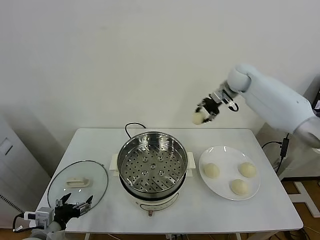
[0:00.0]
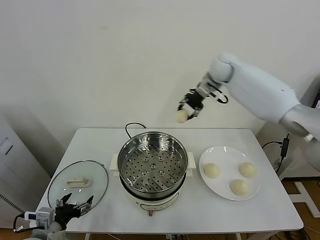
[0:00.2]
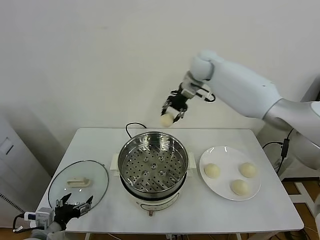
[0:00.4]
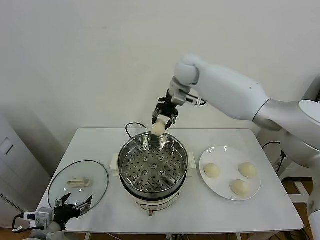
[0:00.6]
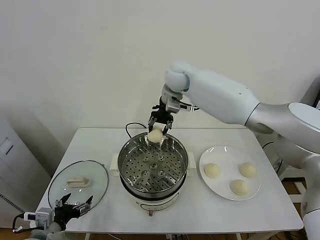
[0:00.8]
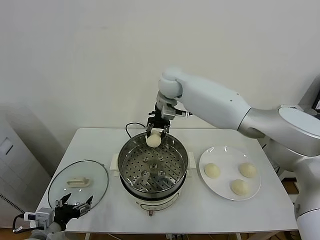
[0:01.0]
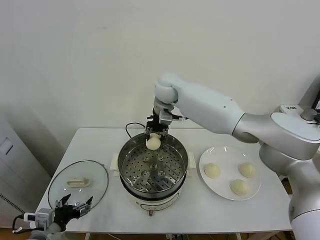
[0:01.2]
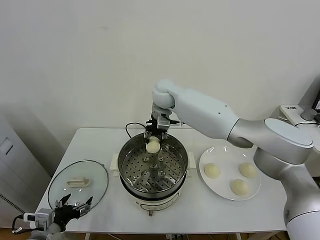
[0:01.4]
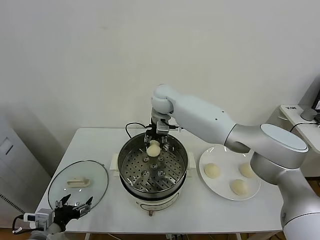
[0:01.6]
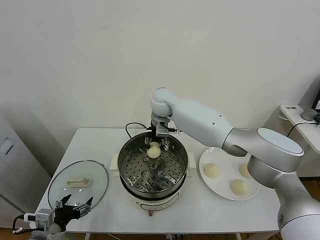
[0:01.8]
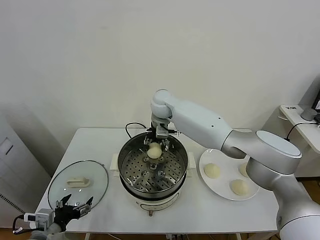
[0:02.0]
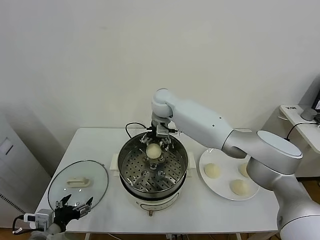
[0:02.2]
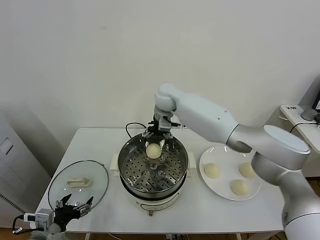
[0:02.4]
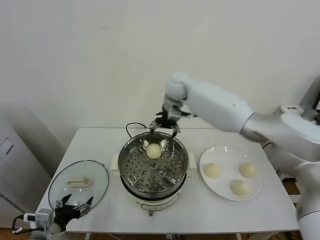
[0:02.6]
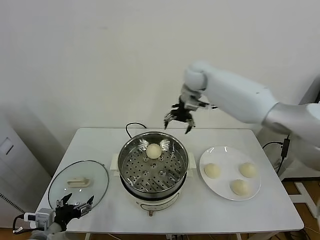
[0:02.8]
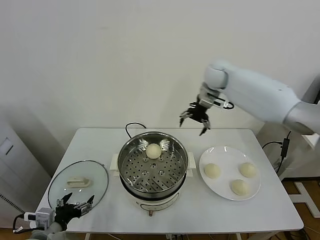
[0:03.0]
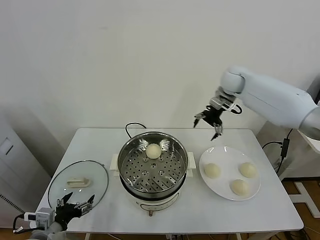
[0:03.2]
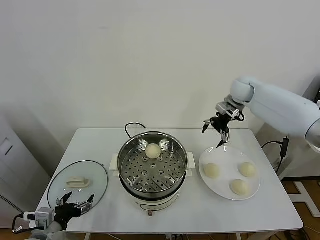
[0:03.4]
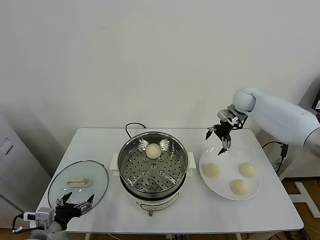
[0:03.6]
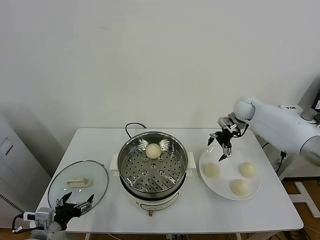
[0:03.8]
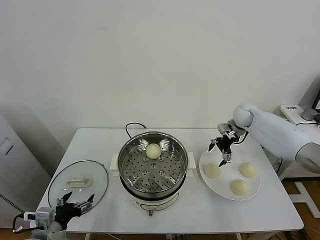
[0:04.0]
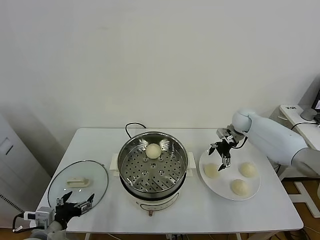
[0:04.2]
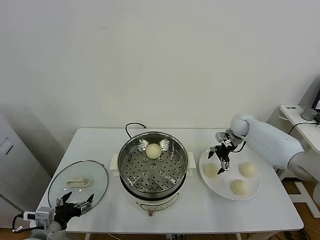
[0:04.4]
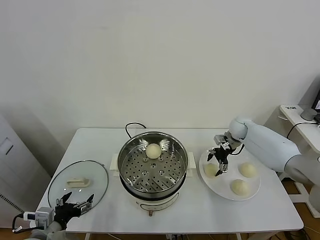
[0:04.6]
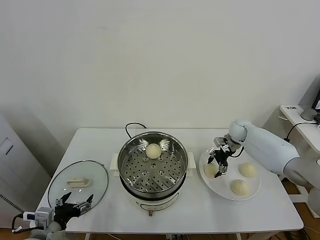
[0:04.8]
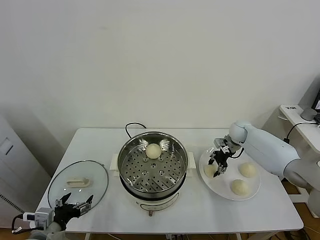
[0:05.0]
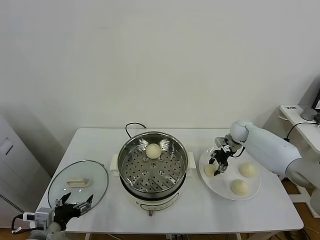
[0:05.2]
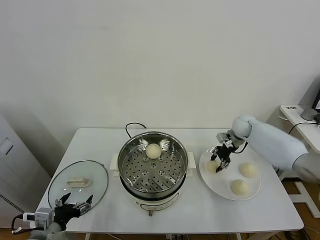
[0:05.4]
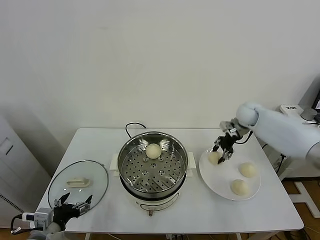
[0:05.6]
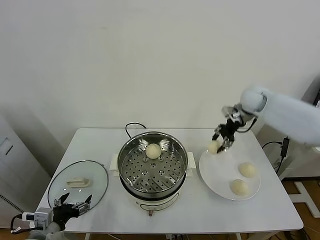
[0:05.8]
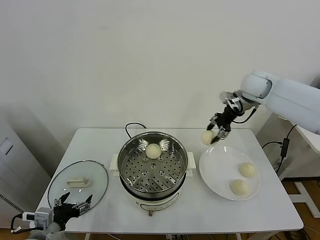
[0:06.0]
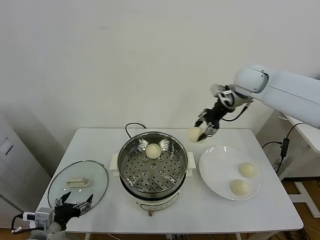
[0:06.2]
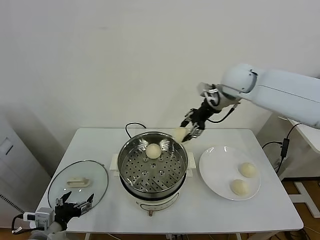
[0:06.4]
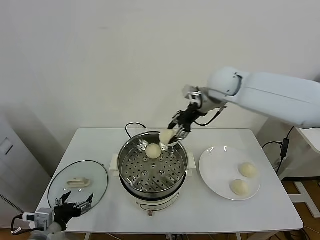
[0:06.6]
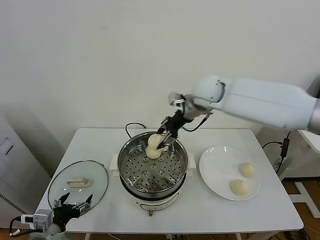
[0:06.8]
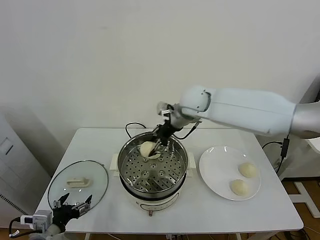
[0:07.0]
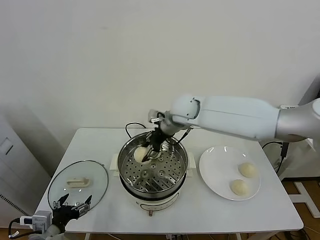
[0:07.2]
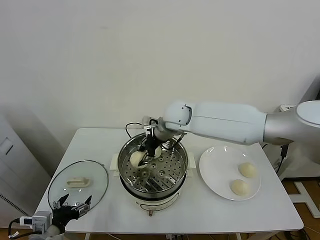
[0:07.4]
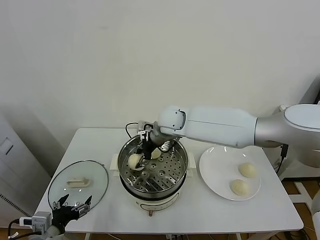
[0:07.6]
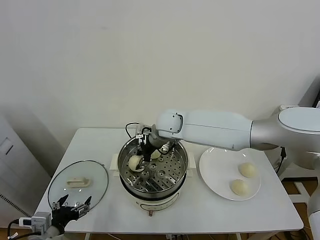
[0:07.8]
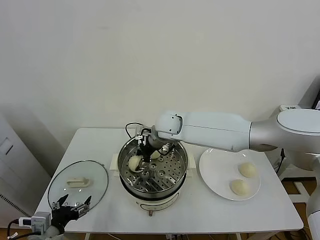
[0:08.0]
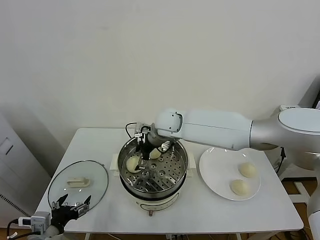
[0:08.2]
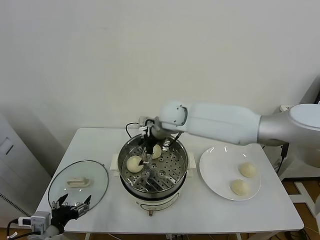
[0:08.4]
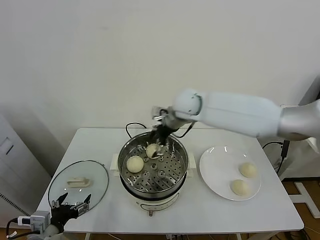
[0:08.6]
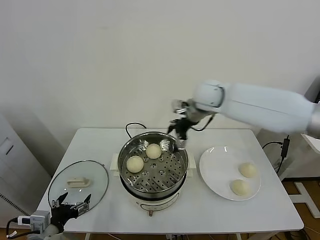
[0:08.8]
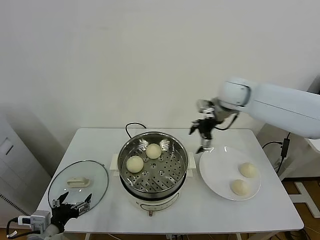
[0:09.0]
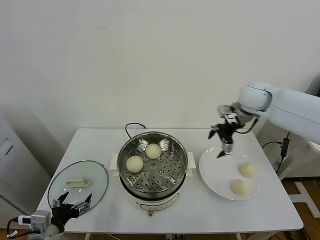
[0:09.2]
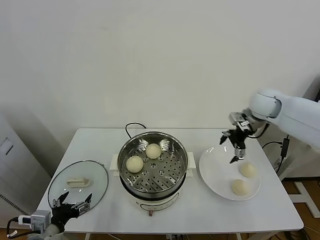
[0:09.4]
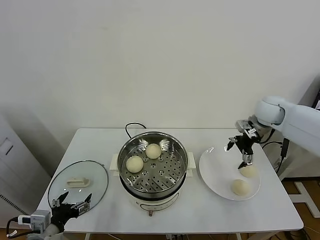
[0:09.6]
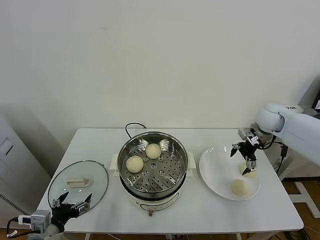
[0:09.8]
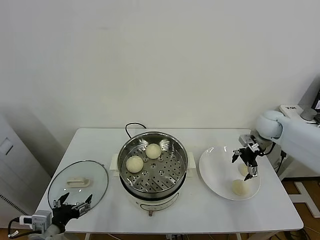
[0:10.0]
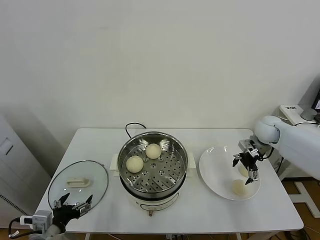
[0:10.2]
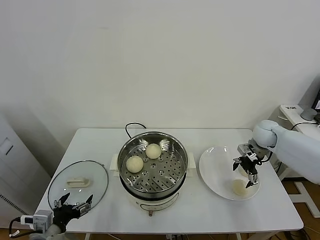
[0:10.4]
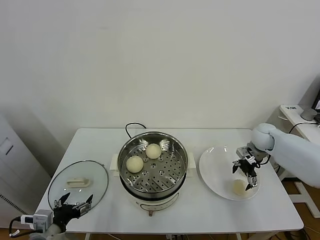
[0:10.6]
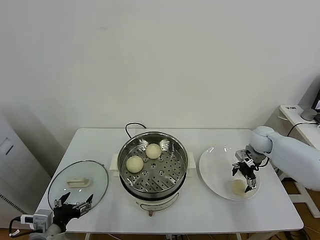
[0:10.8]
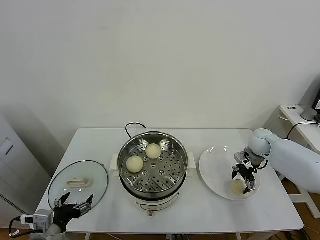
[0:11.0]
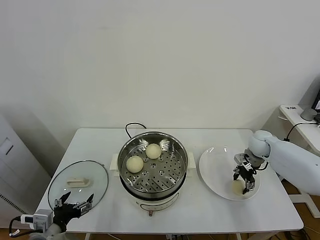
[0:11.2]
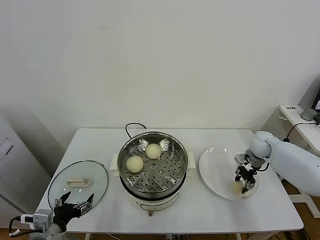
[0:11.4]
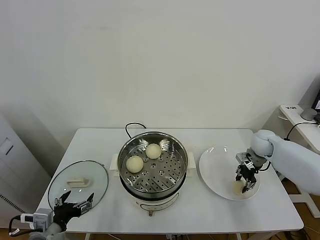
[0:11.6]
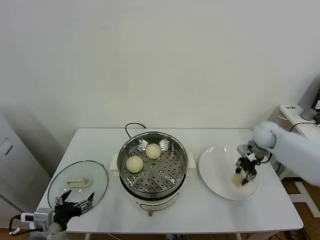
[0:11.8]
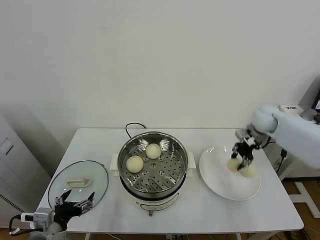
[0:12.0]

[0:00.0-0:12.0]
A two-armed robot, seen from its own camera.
Task of the whole recording: take steamed baozi put them in steamer.
Step, 0:00.0 to 0:02.2: Place the baozi on the steamer with right gripper.
Step, 0:02.4 to 0:05.0: Grasp the baozi in the plate with right gripper.
Step, 0:05.2 to 0:08.4: Place the baozi on the steamer with right gripper.
Step, 0:08.6 to 0:11.2: Grasp the baozi in the plate with right gripper.
0:00.0 to 0:01.6: The right gripper shifts about 25 cm to the left.
0:01.6 to 0:03.0: The right gripper moves to the right, approximately 20 cm, and opens up.
0:03.0 to 0:04.4: The right gripper shifts about 25 cm downward and to the right.
0:04.4 to 0:06.0: The right gripper goes some 20 cm upward, and closes up.
0:06.0 to 0:07.6: The right gripper shifts some 30 cm to the left and downward.
0:07.6 to 0:09.0: The right gripper is displaced to the right and upward by approximately 25 cm, and opens its fingers.
0:09.0 to 0:10.4: The right gripper travels downward and to the right by approximately 25 cm.
0:10.4 to 0:12.0: The right gripper heads upward, covering approximately 10 cm, and closes.

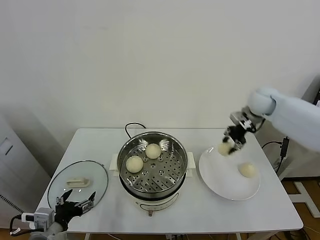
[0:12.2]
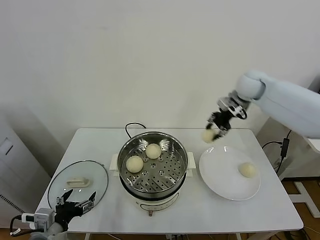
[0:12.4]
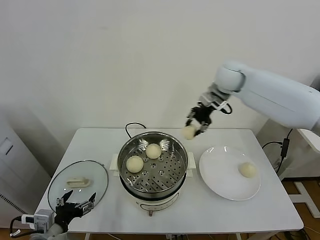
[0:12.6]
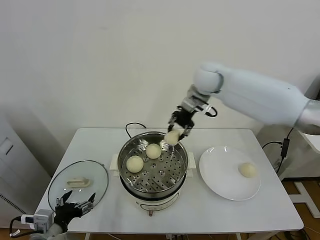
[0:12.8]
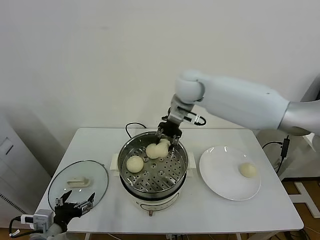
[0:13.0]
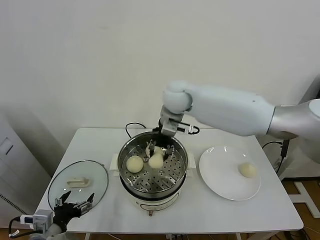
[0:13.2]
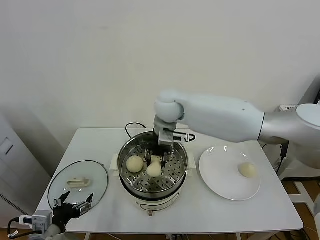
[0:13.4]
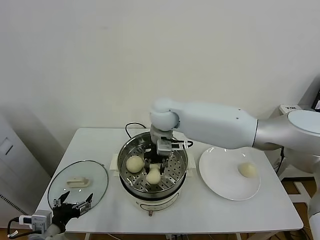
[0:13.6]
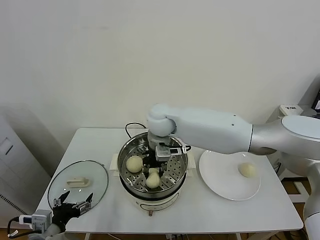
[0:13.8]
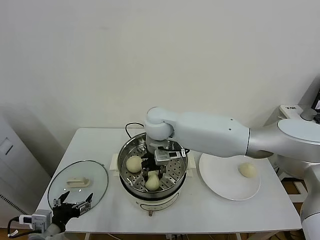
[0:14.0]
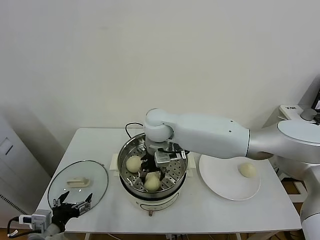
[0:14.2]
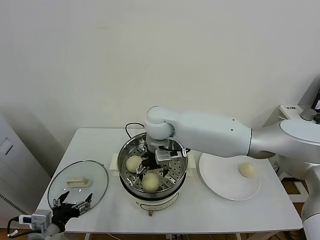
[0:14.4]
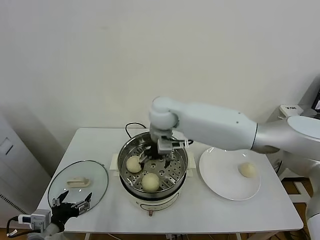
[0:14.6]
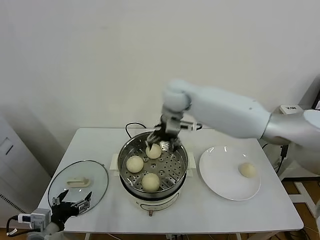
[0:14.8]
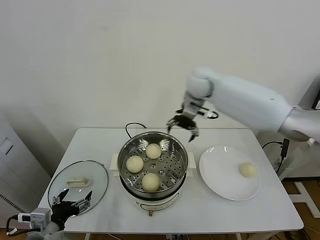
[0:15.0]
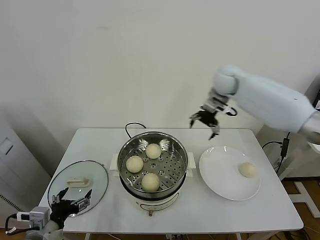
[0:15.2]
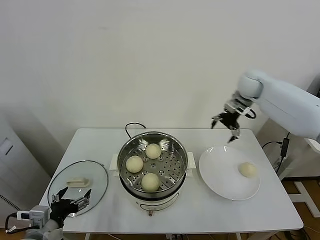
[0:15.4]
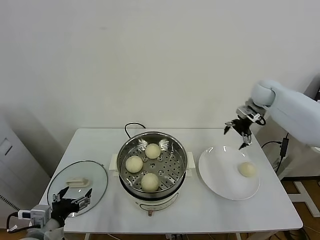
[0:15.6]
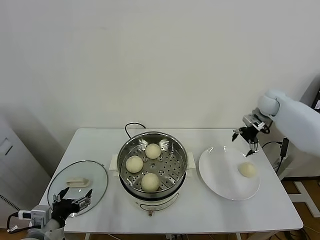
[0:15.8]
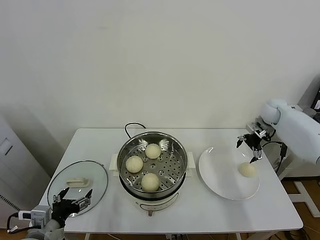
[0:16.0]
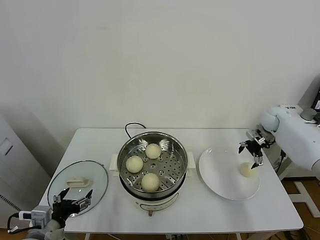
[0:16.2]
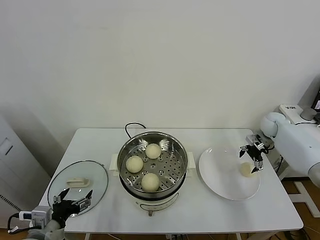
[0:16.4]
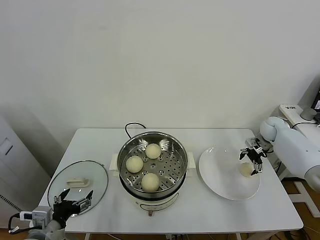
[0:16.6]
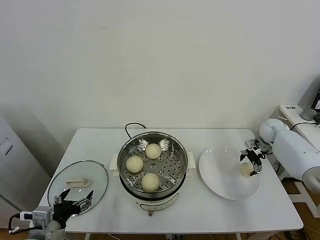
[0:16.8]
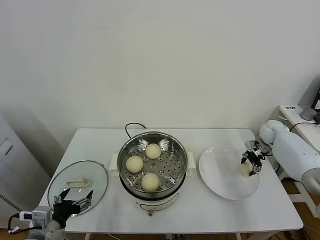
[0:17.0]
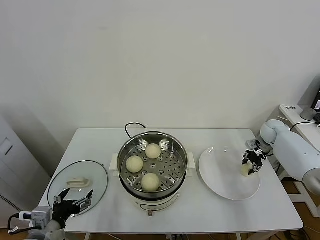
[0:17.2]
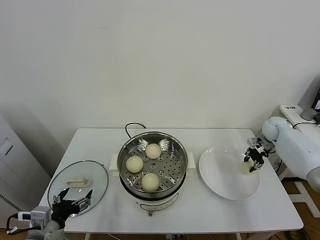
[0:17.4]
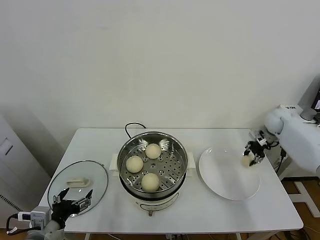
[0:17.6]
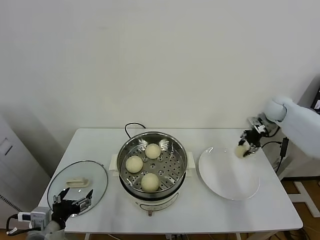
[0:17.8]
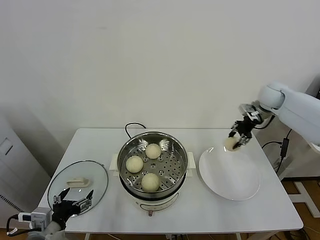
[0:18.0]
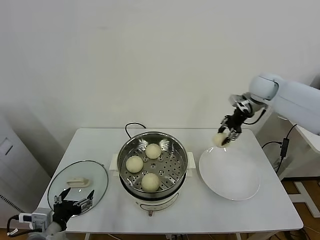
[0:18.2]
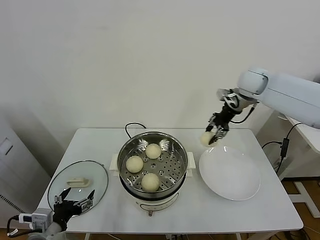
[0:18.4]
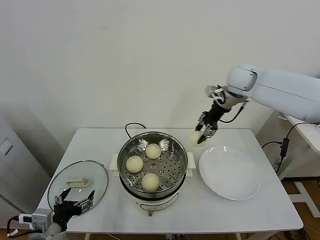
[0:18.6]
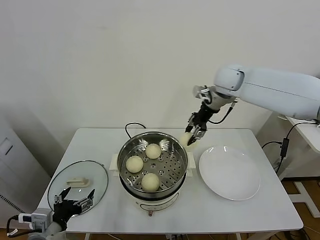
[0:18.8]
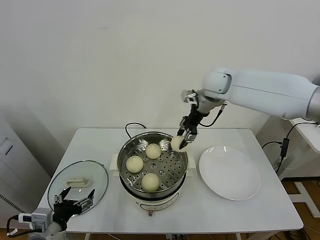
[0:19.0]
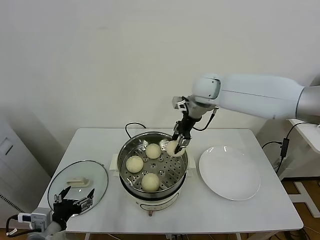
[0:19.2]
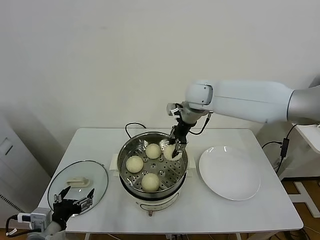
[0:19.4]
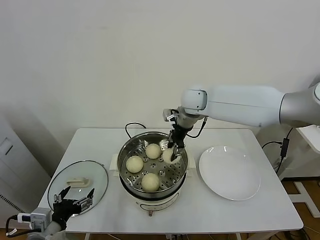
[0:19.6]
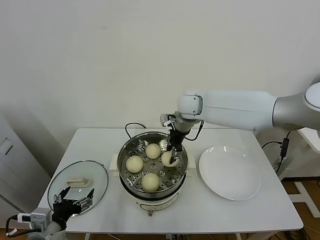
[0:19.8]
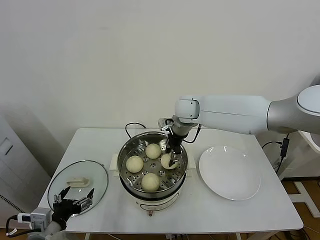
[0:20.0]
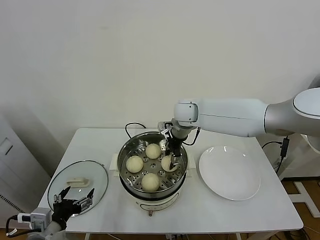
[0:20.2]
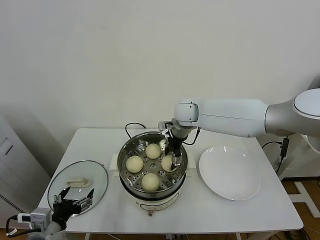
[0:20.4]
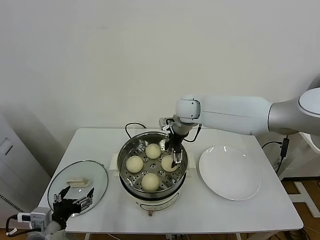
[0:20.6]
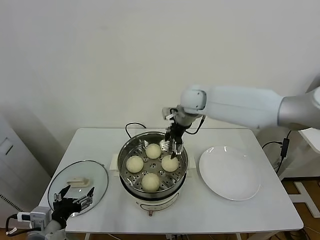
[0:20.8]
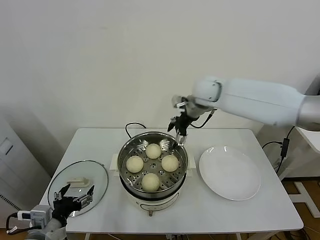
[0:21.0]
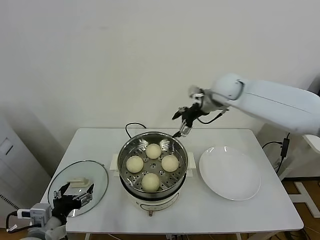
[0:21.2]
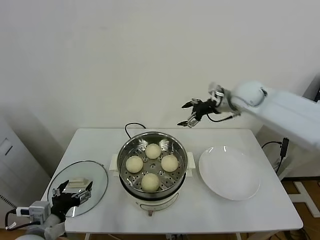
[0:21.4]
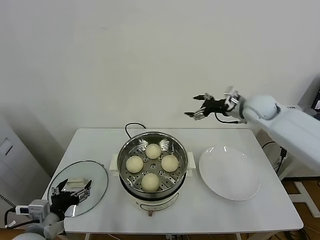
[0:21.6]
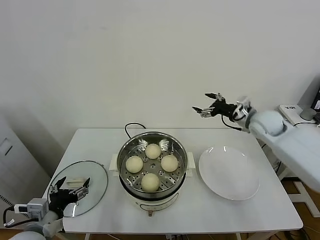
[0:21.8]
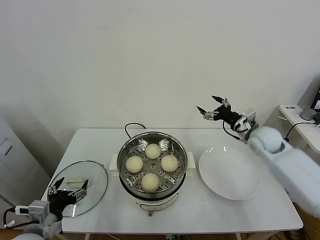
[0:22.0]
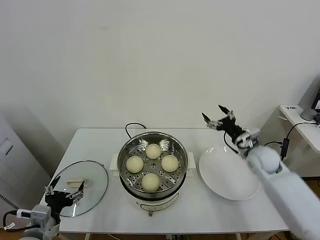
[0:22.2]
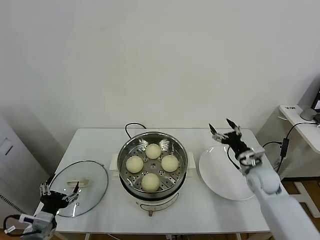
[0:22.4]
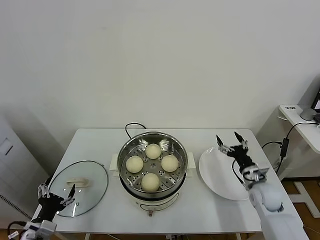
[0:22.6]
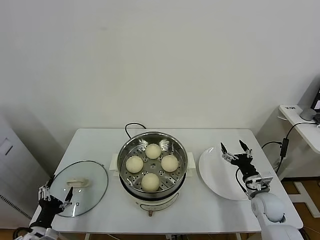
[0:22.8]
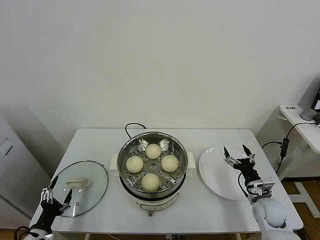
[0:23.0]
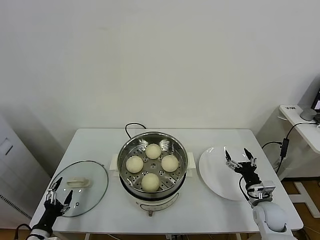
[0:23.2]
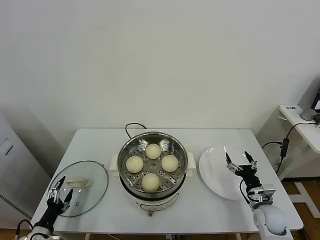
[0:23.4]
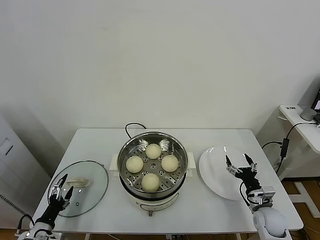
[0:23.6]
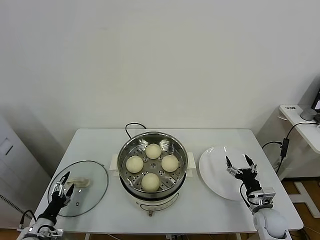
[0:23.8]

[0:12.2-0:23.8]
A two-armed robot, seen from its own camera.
Task of the whole recording: take steamed baozi put them in steamer.
Step, 0:12.2 to 0:14.4: Place the baozi on the steamer with right gripper.
Step, 0:14.6 to 0:17.0: Grasp the baozi in the plate with right gripper.
Step, 0:17.4 to 0:20.6: Place the baozi on the steamer with right gripper.
0:12.2 to 0:13.6: The right gripper goes roughly 35 cm to the left.
0:13.6 to 0:15.0: The right gripper goes some 15 cm to the right, forward and upward, and opens its fingers.
0:15.0 to 0:16.6: The right gripper shifts about 40 cm to the right and downward.
0:16.6 to 0:18.0: The right gripper travels upward and to the left by roughly 20 cm, and closes.
0:18.0 to 0:19.4: The right gripper moves to the left, roughly 25 cm.
0:19.4 to 0:21.0: The right gripper reaches roughly 5 cm downward, then returns, and opens its fingers.
0:21.0 to 0:22.4: The right gripper goes roughly 35 cm downward, to the right and backward. The left gripper changes place by roughly 5 cm.
0:22.4 to 0:23.8: The right gripper heads downward and backward, covering about 15 cm. Meanwhile the left gripper moves downward and to the left, about 15 cm.
